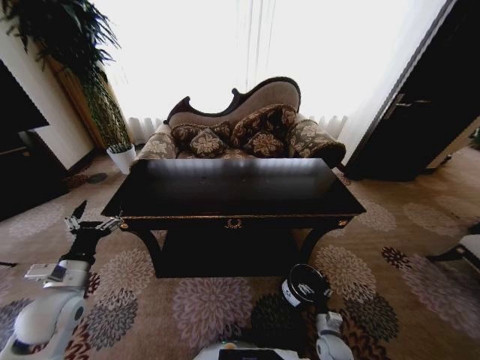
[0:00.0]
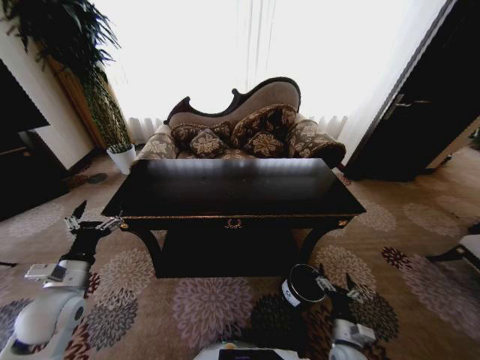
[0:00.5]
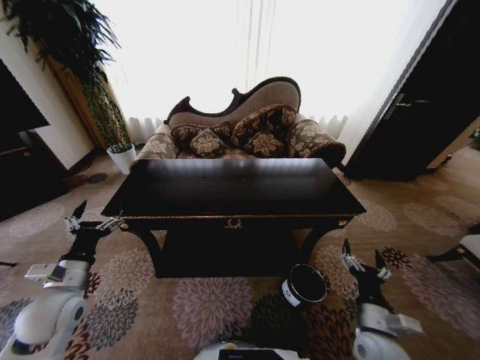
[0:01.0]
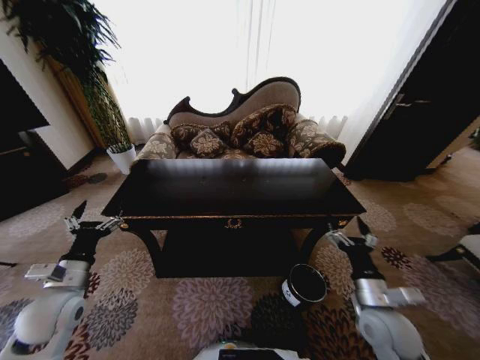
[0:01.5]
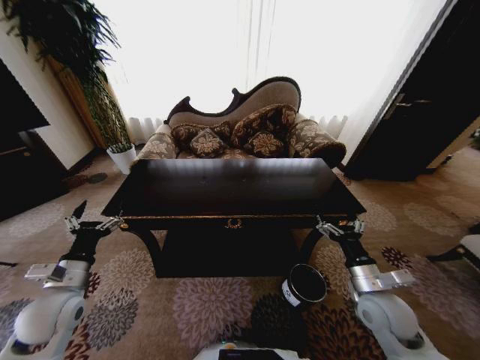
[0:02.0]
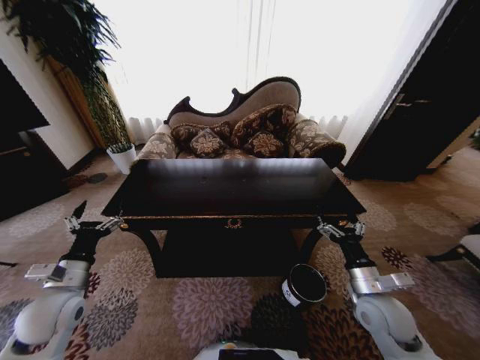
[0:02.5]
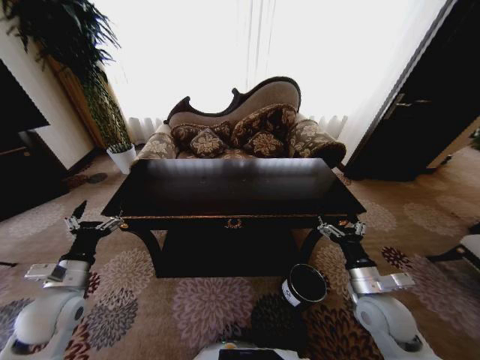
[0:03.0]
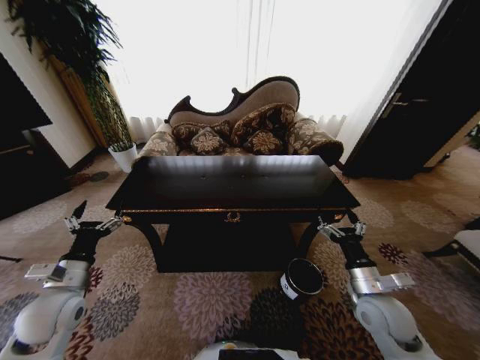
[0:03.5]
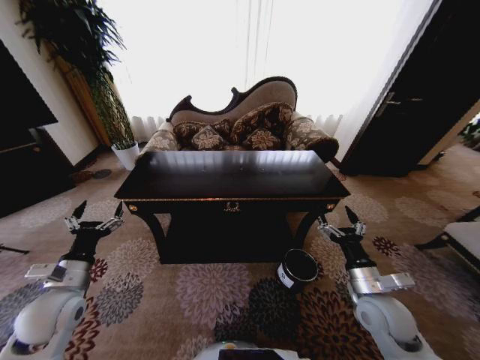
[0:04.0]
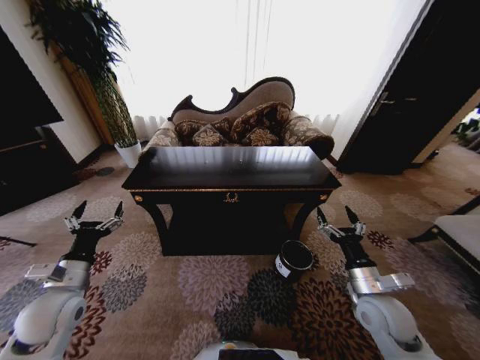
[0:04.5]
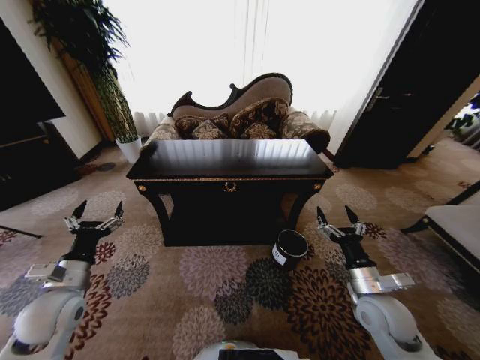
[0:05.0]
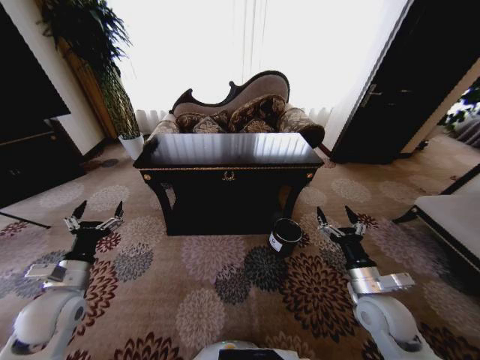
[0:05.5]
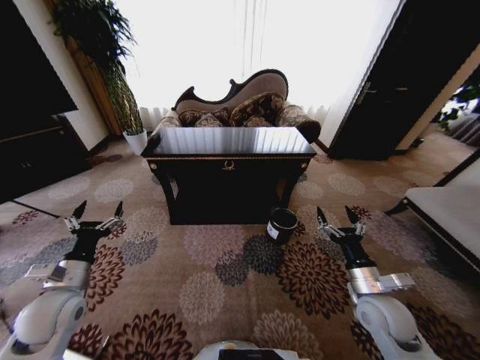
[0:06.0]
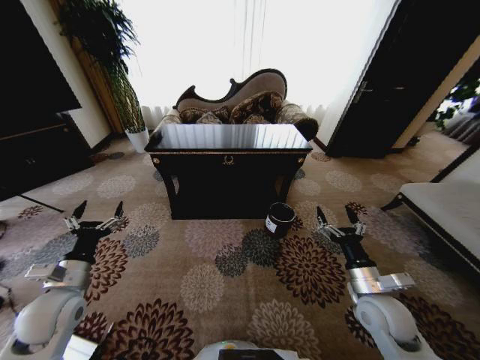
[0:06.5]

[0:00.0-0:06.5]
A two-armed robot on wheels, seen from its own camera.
Task of the whole recording: Move to the front of the table and place the trash on the table into the trash bin.
0:00.0 to 0:02.0: The right gripper is displaced upward by approximately 30 cm.
